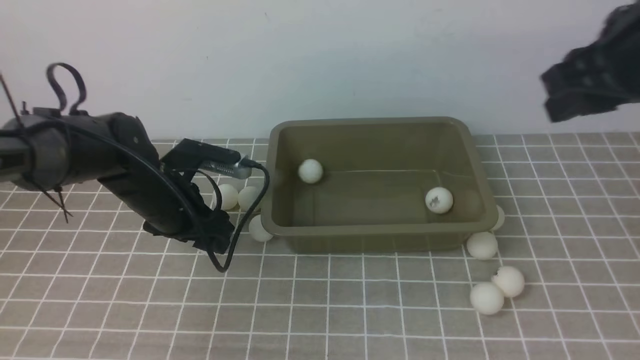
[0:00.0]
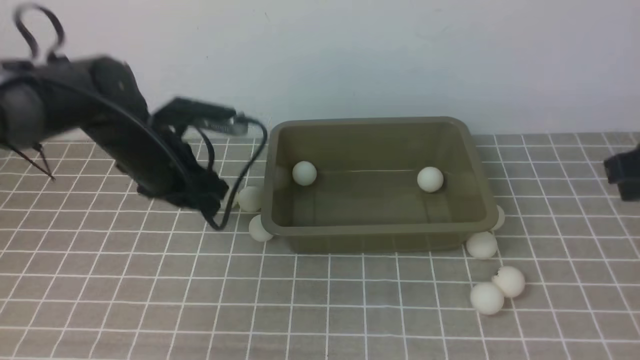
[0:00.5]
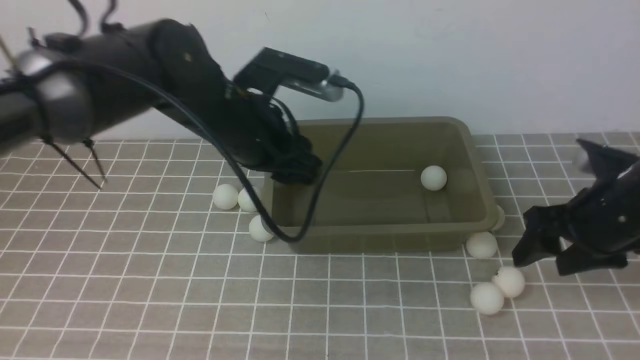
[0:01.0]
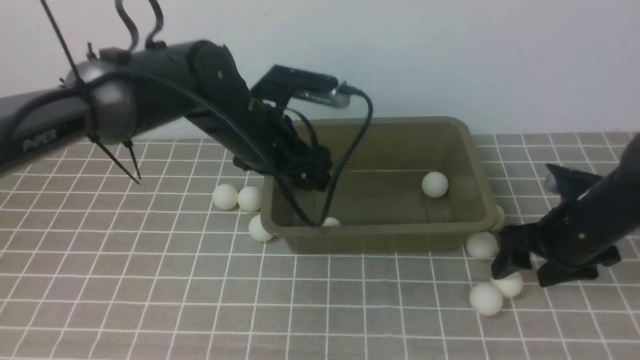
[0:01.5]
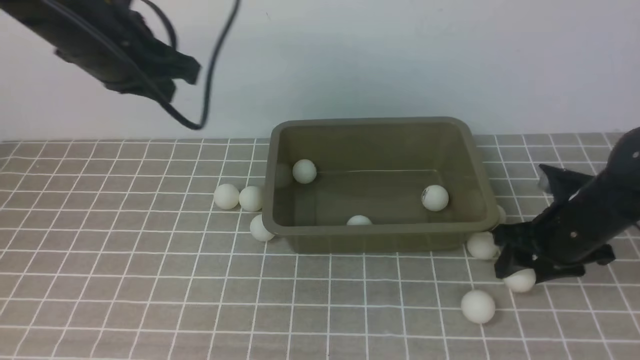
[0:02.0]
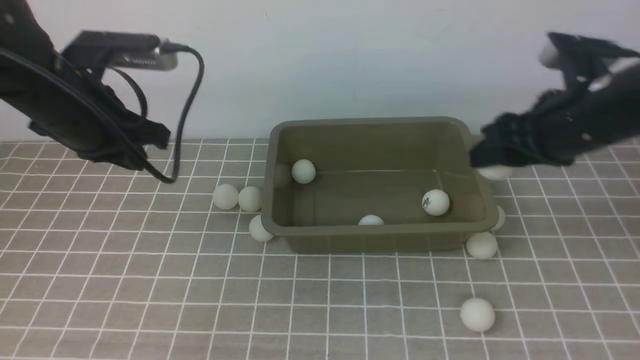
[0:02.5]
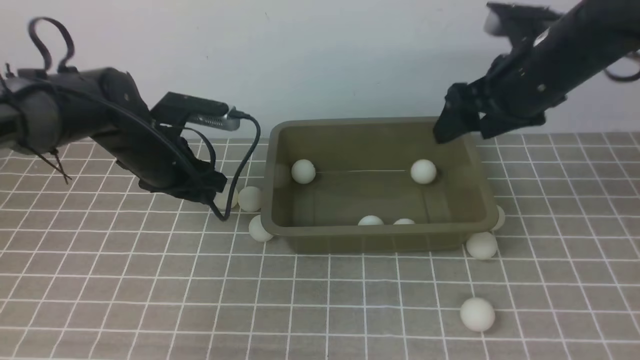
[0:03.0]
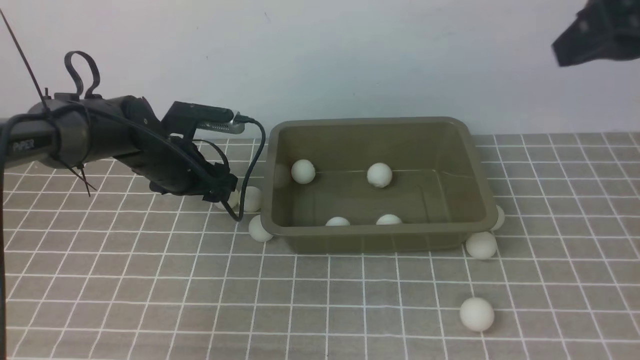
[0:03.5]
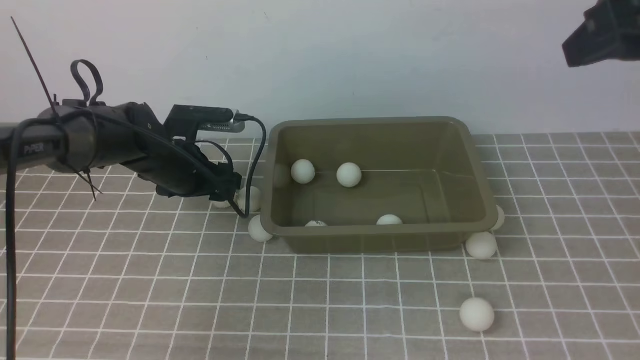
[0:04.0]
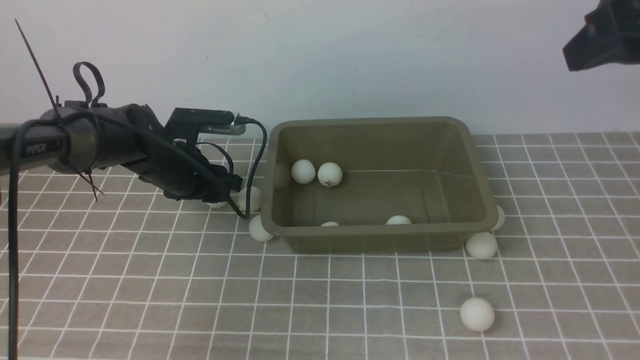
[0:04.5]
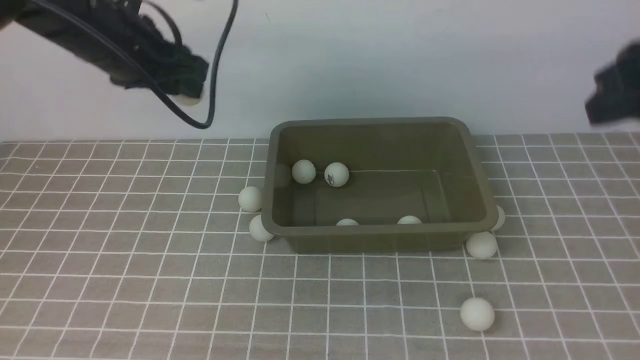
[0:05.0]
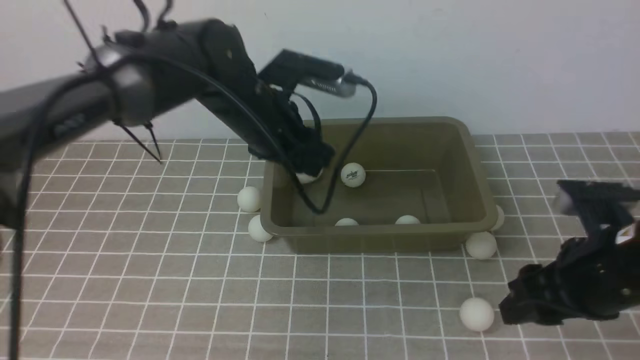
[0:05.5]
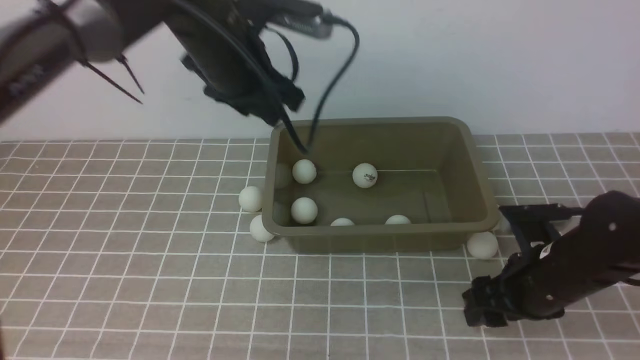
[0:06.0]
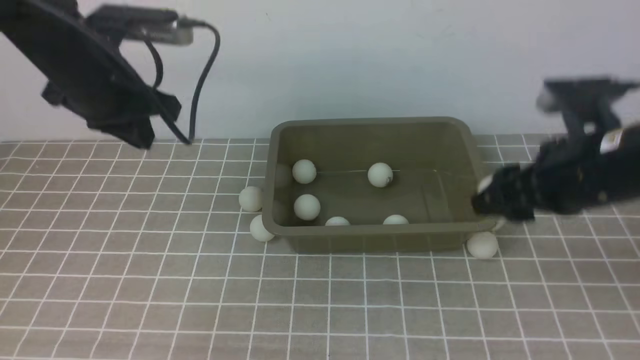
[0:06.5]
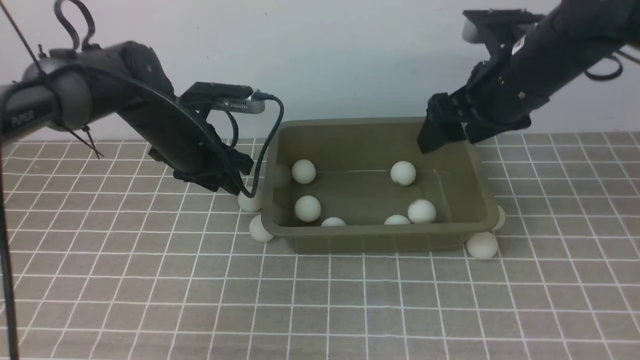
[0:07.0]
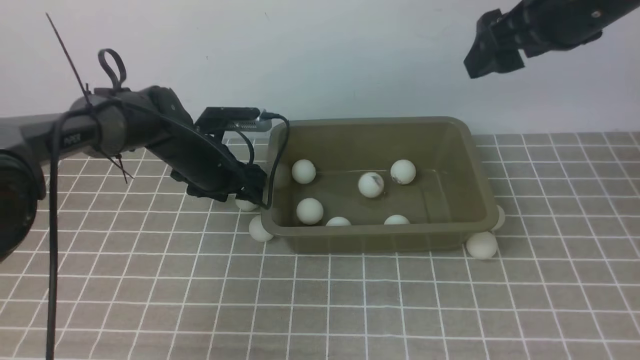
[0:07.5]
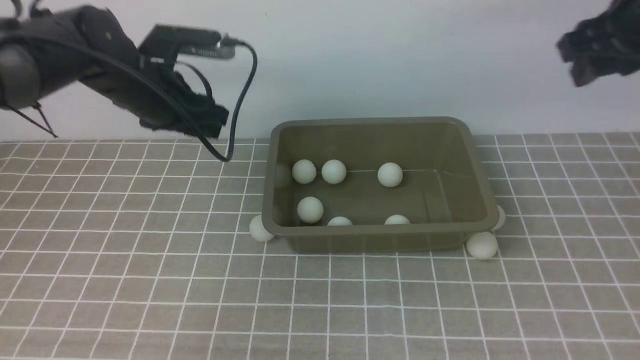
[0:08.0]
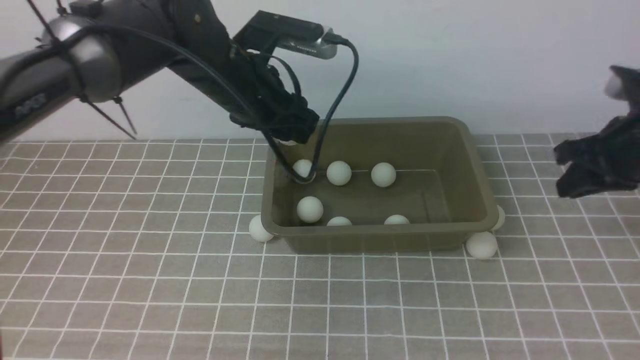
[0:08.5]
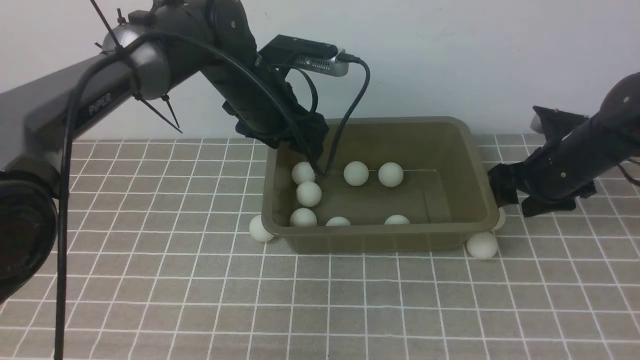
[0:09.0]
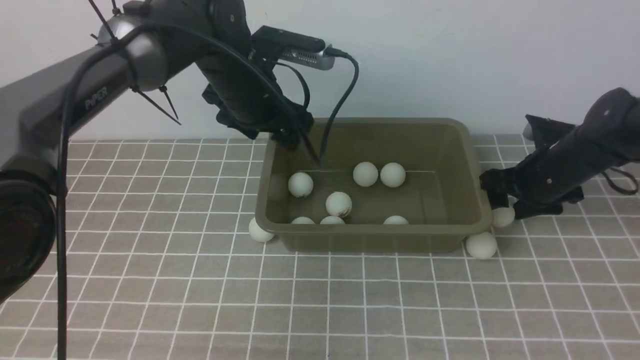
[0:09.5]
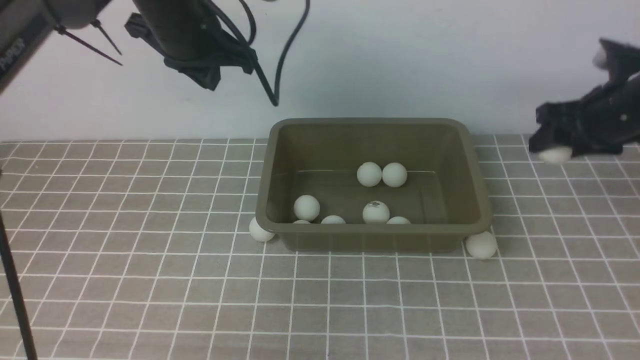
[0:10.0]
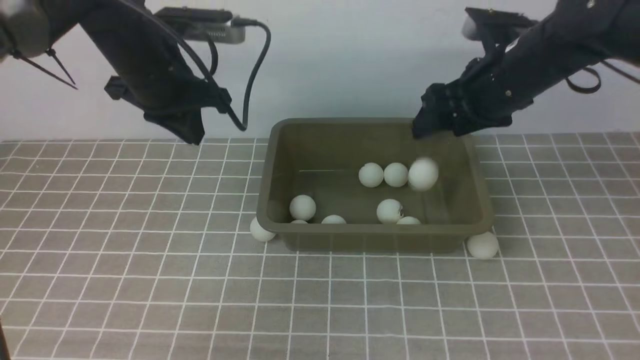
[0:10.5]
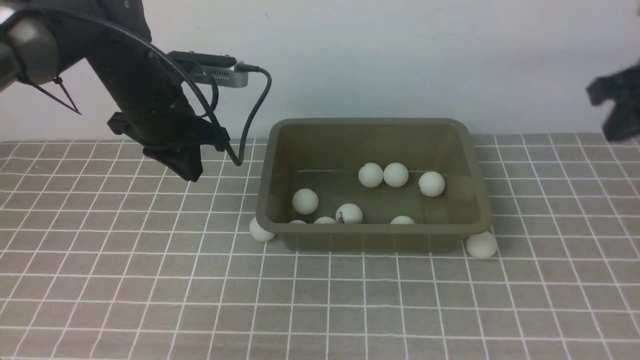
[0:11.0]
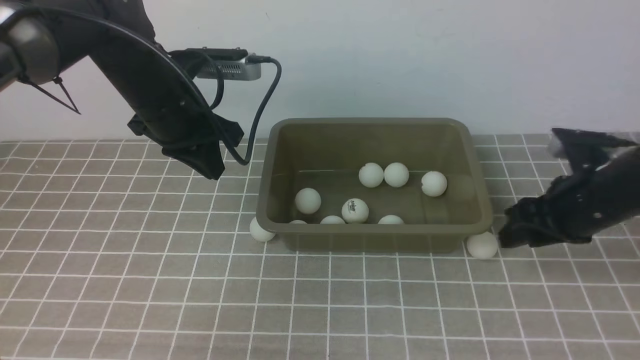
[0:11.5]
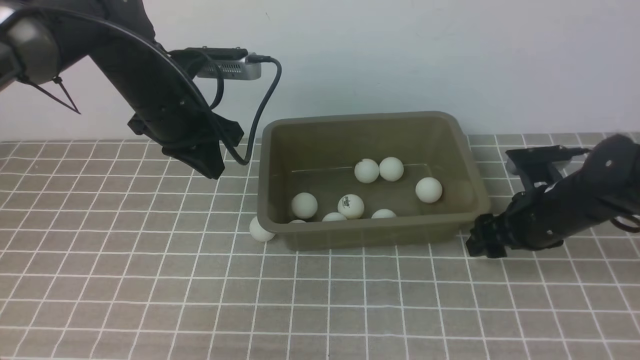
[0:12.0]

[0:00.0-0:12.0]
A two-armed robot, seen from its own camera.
Step, 0:00.0 to 0:00.5: use the left arm to clamp the table tennis ball closest to it.
Step, 0:01.5 to 0:02.0: use the right arm to clamp the table tennis ball closest to it.
Step, 0:03.0 to 0:04.5: use the left arm to clamp the table tennis ball closest to it.
Step, 0:05.0 to 0:05.5: use the left arm to put the table tennis ball into the box.
Step, 0:06.5 to 0:07.0: use the right arm to put the table tennis ball into the box.
Step, 0:08.0 to 0:09.0: use the left arm to put the table tennis ball into the box.
Step, 0:10.0 to 0:10.5: use the right arm to put the table tennis ball into the box.
0:00.0 to 0:02.0: The left gripper is displaced upward by some 20 cm, and closes its fingers, while the right gripper shifts roughly 20 cm downward.
0:02.0 to 0:04.0: The right gripper moves upward, approximately 25 cm. The left gripper is displaced downward by about 20 cm, and opens its fingers.
0:04.0 to 0:06.0: The left gripper goes up and down, roughly 20 cm each way, reversing 2 times, and closes up. The right gripper heads downward, covering approximately 30 cm.
0:06.0 to 0:08.0: The right gripper goes roughly 25 cm upward and forward. The left gripper goes roughly 10 cm downward and to the left, and closes and opens again.
0:08.0 to 0:10.0: The right gripper goes approximately 10 cm downward, while the left gripper heads upward, covering some 10 cm, travels to the right and back again, some 10 cm each way, and closes its fingers.
0:10.0 to 0:12.0: The left gripper travels downward by about 5 cm. The right gripper goes roughly 10 cm downward and backward, and closes and opens again.

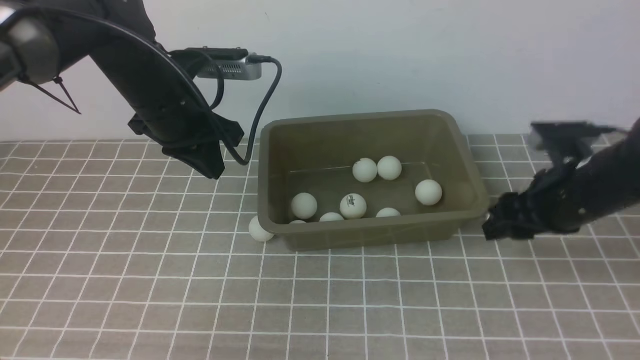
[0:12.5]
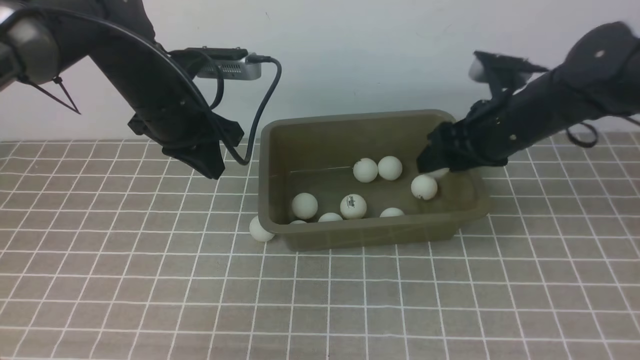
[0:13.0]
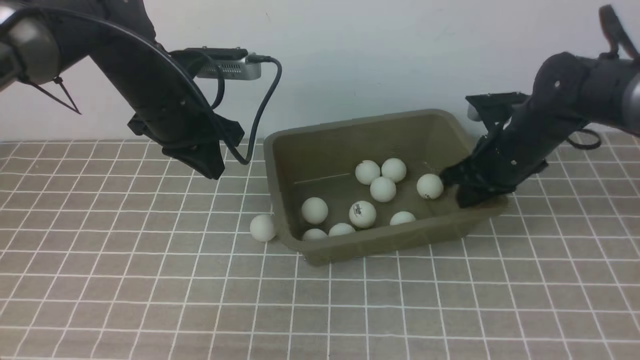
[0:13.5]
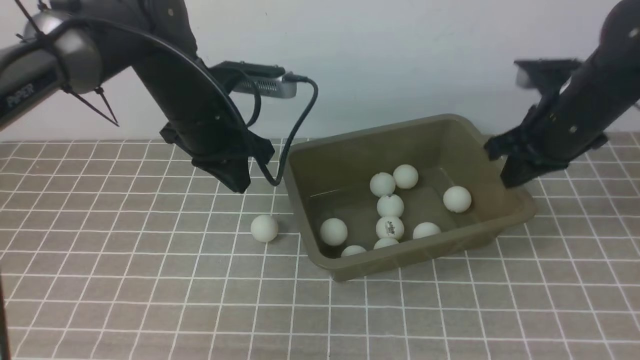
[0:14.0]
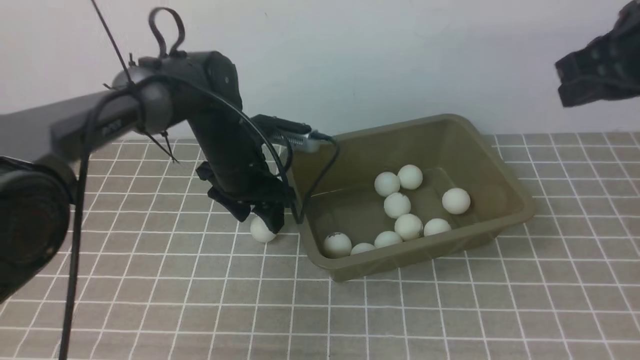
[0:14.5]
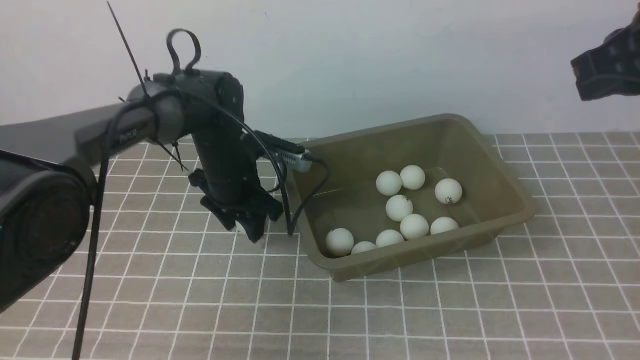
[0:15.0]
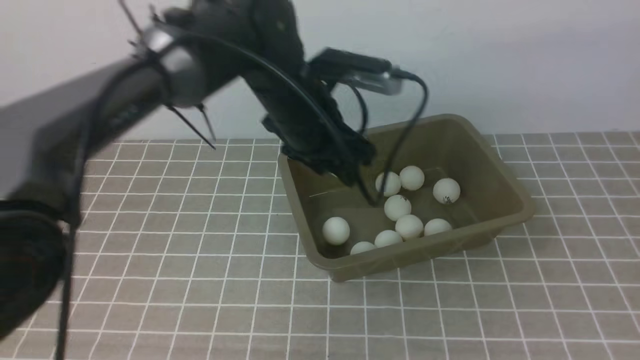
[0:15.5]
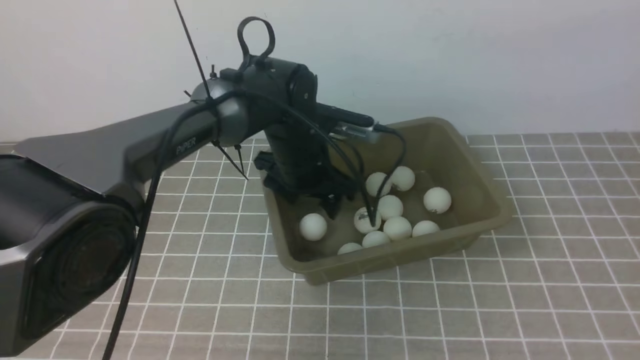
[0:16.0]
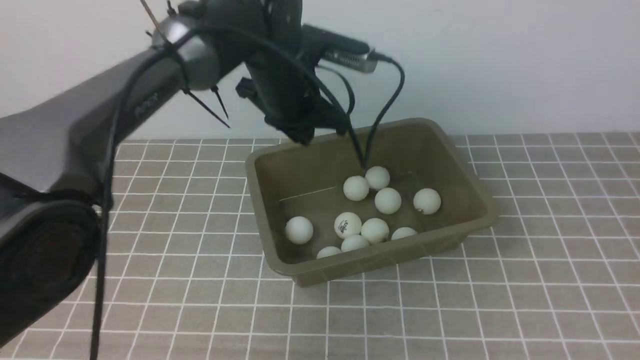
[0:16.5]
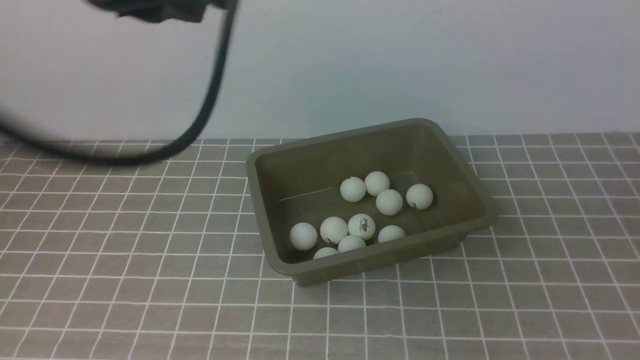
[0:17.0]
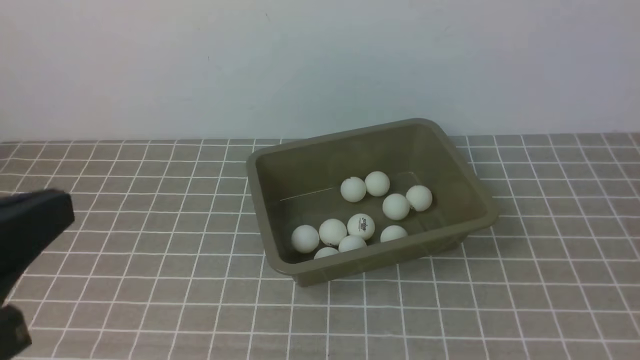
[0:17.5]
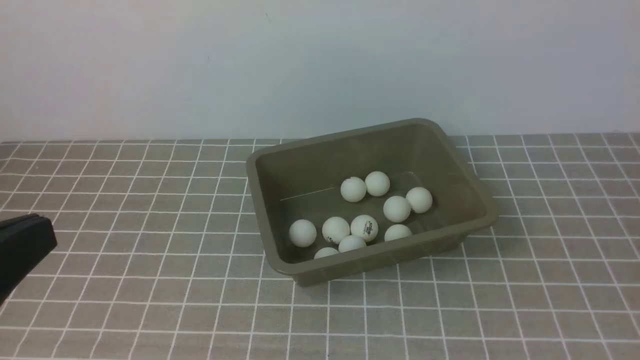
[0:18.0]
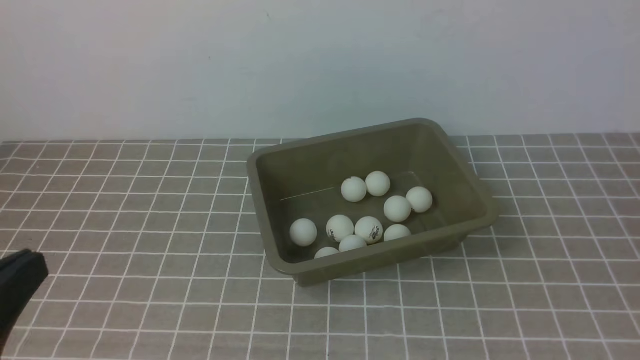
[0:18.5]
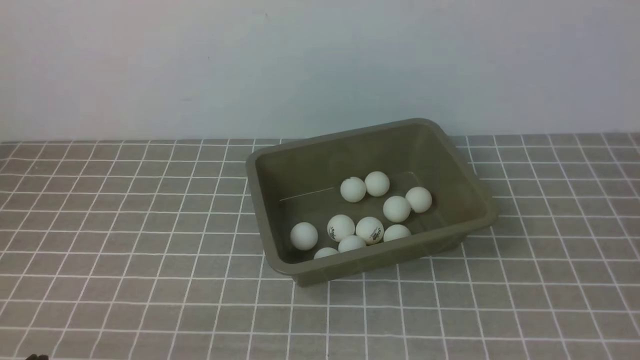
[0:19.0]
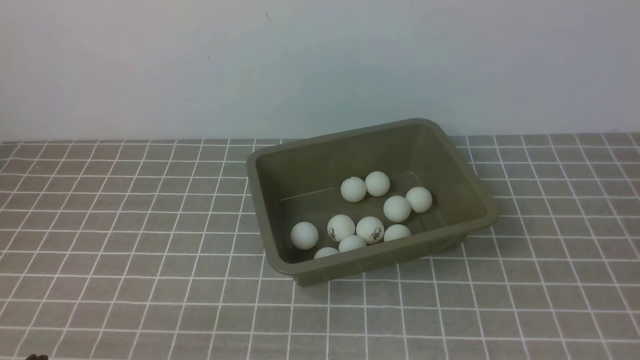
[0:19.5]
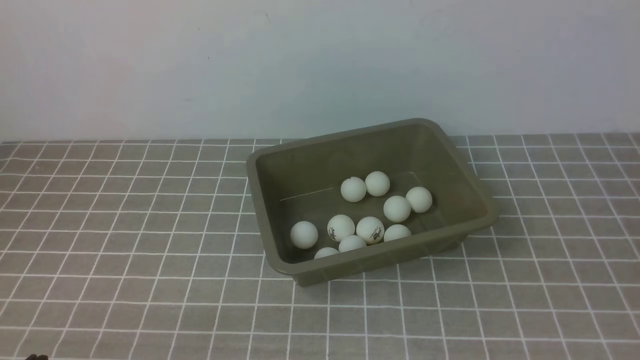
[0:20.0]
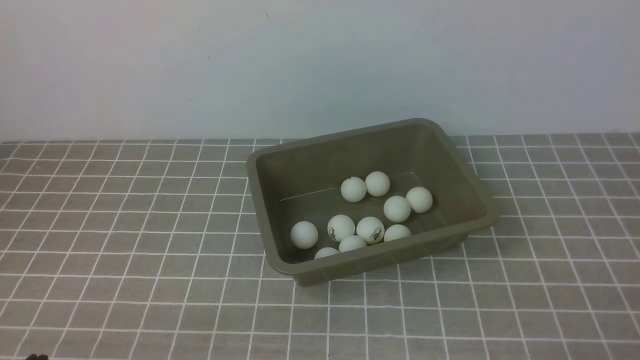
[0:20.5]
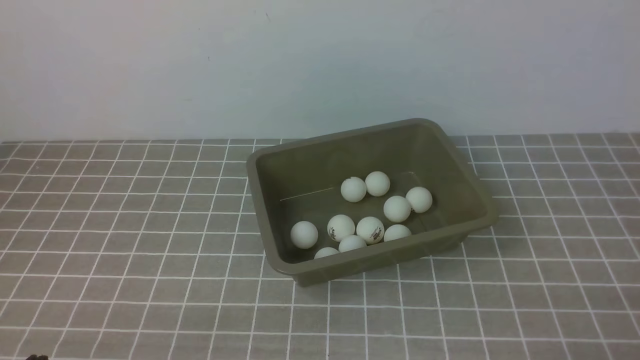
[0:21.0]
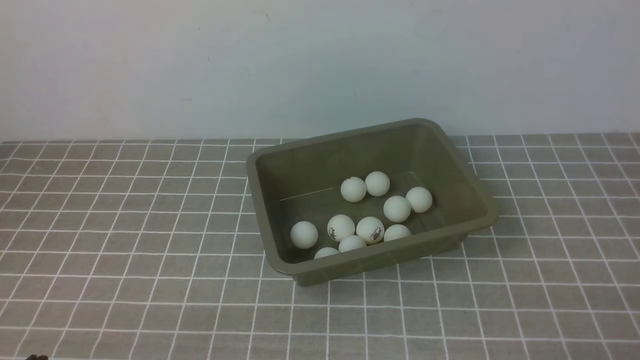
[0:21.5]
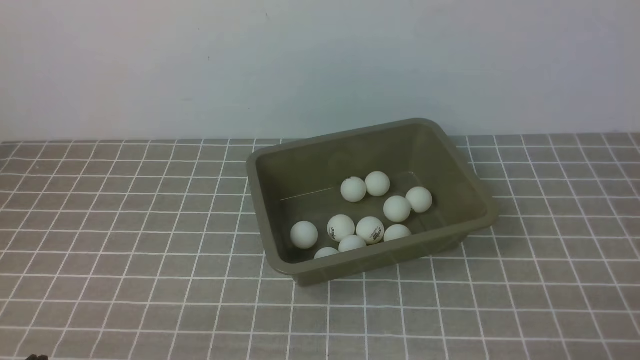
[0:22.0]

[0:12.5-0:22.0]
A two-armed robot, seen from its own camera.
Step, 0:13.5 to 0:15.0: use the left arm to clamp the table tennis ball closest to it.
Step, 0:15.5 to 0:16.0: use the left arm to put the table tennis ball into the box.
0:12.5 to 0:14.5: The right gripper heads upward, covering some 15 cm, and closes; the left gripper goes about 10 cm downward and to the right, and opens up.
0:14.5 to 0:16.5: The right gripper heads backward, covering approximately 20 cm, while the left gripper swings up and down, roughly 15 cm each way, with 2 reversals, and closes up.
0:16.5 to 0:18.0: The left gripper travels backward and to the left by roughly 40 cm; the right gripper goes approximately 15 cm backward and downward.
0:18.0 to 0:20.0: The left gripper shifts roughly 20 cm downward.
